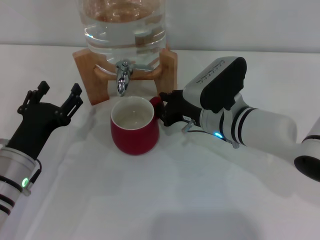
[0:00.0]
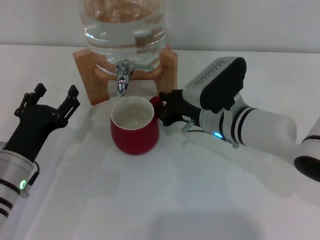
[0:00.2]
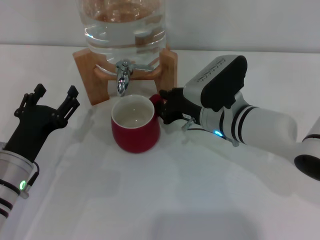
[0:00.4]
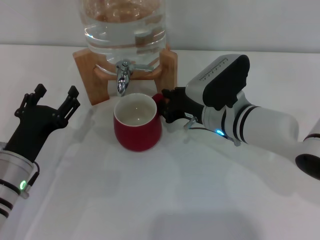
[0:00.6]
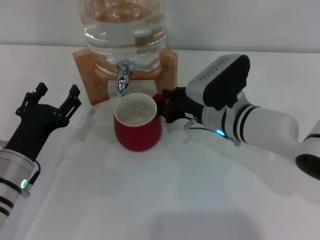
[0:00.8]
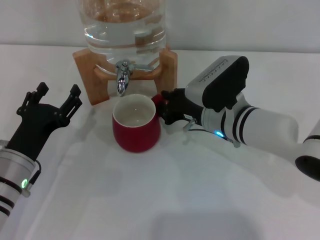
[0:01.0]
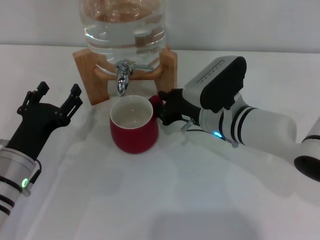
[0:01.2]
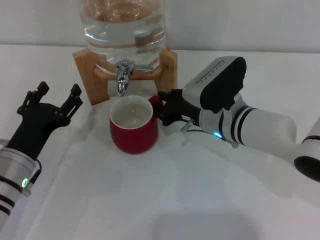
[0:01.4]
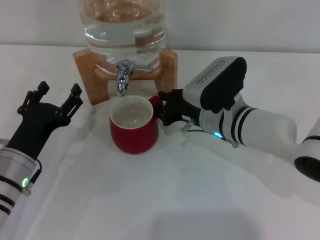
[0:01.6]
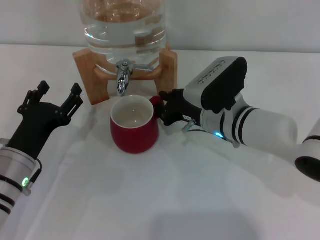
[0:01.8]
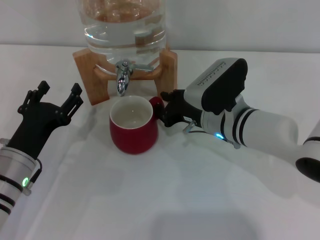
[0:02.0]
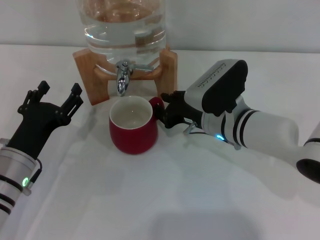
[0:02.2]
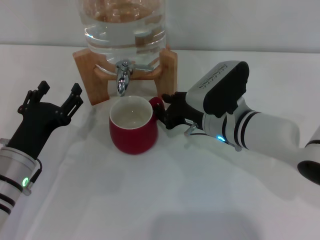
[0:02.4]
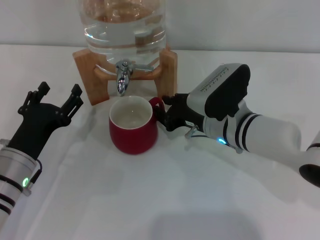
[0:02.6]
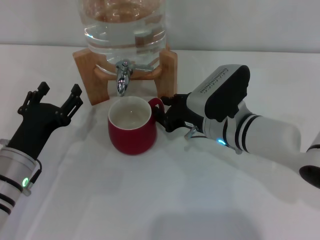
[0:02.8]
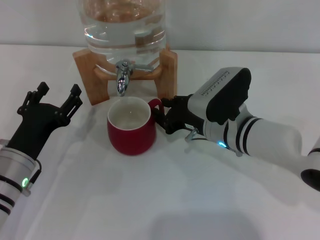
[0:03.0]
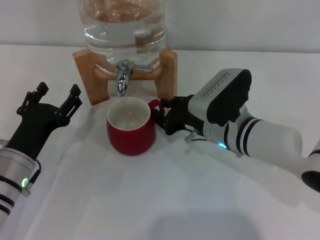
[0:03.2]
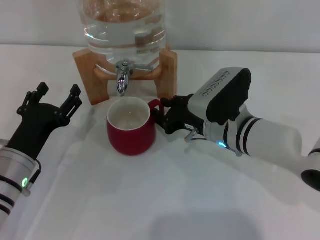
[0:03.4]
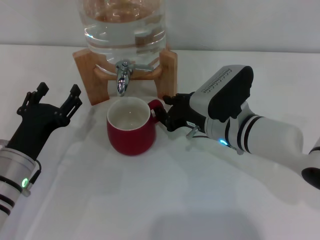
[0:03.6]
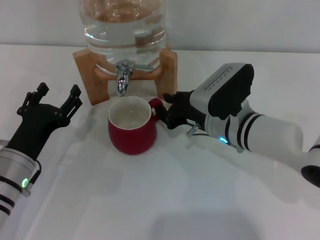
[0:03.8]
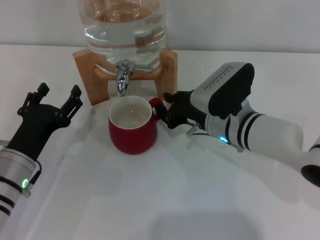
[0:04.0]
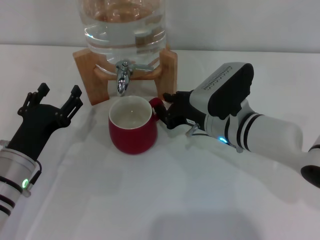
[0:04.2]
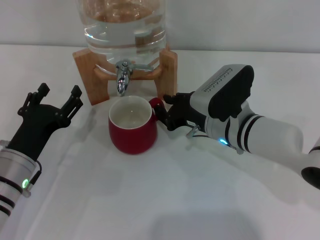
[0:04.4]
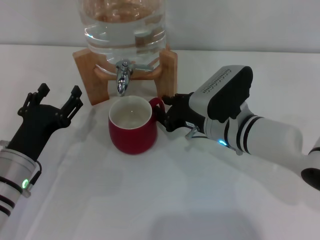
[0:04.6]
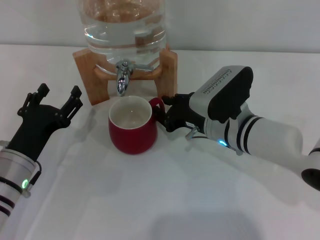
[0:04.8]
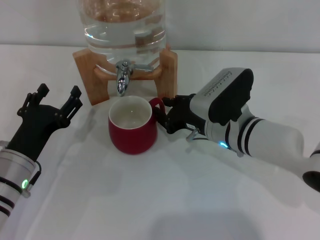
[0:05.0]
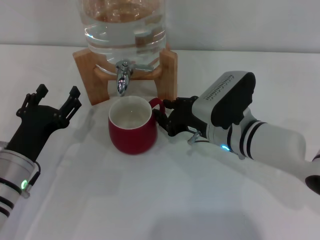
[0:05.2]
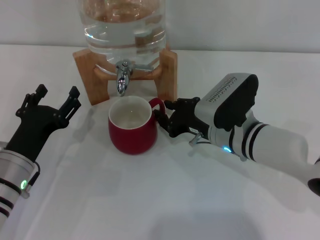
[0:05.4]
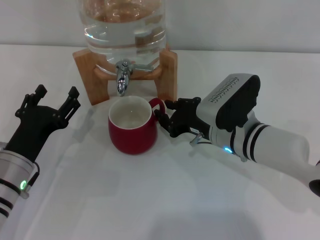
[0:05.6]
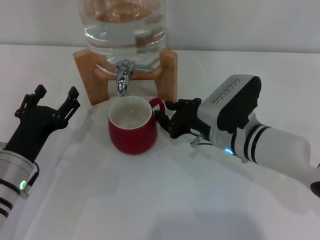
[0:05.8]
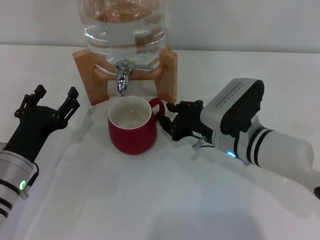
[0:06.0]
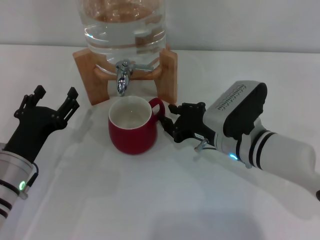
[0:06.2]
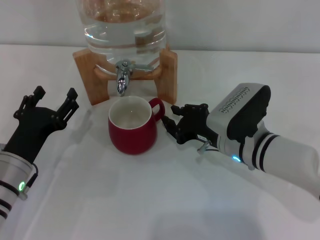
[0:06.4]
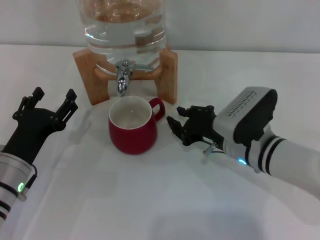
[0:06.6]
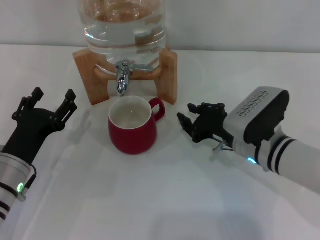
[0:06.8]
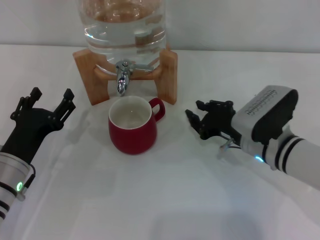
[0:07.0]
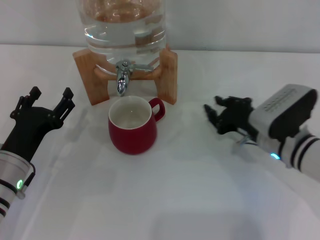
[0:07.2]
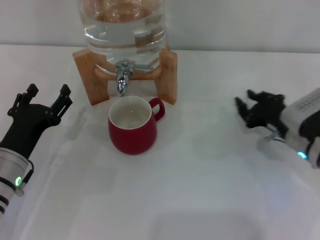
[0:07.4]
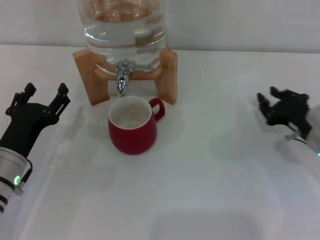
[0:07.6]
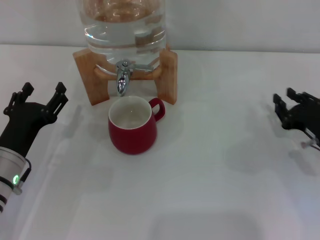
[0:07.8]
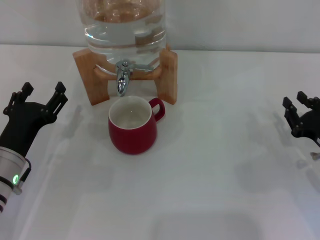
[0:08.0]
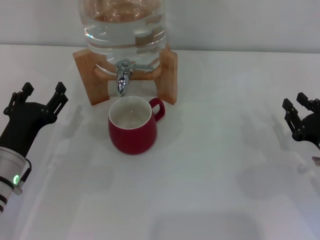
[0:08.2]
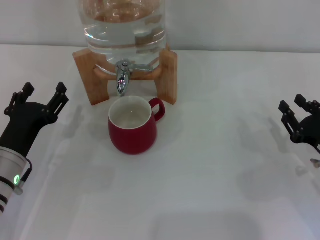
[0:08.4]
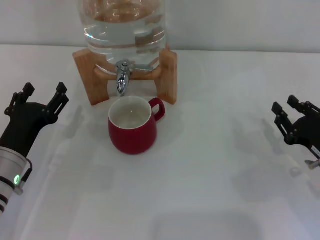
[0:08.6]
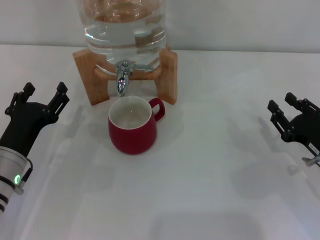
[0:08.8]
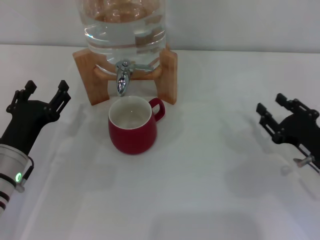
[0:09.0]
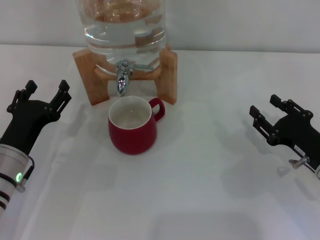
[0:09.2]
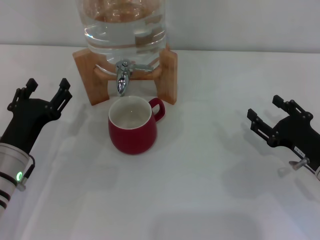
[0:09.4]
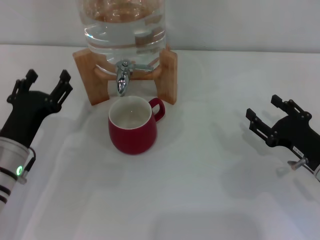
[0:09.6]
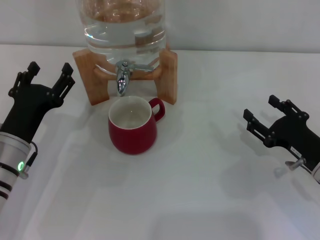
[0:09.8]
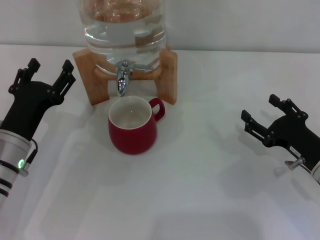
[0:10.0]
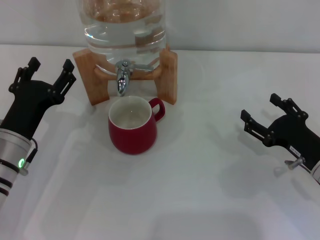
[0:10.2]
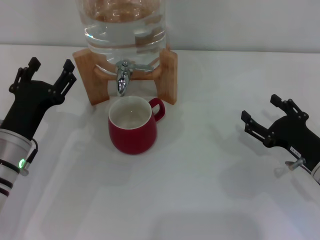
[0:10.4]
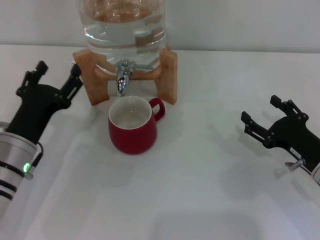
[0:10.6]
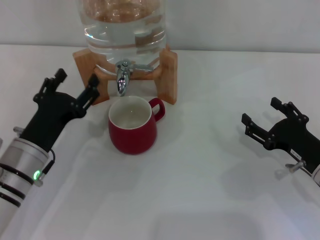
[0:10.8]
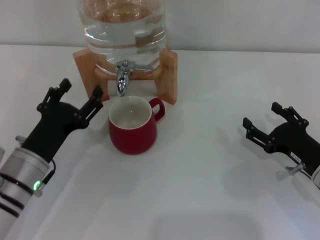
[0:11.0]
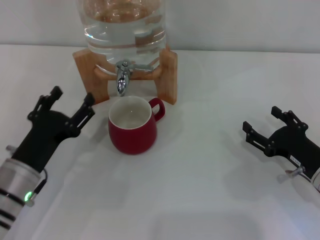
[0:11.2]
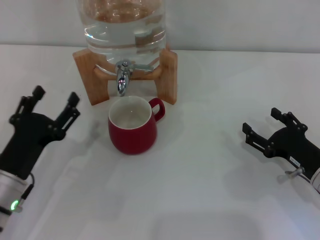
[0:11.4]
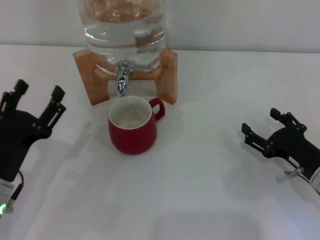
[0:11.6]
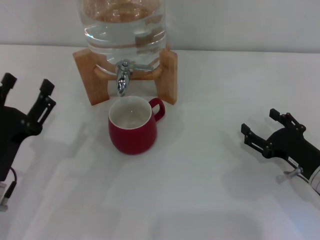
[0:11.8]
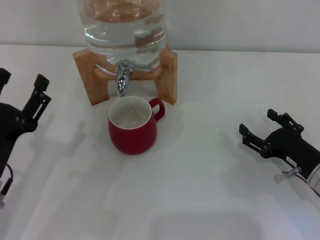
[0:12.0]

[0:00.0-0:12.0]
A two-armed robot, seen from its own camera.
Task of the whole recording: the right gripper pick up the red cup and place it horizontally under the faucet, the left gripper turn on the faucet to fill the cup, and then turn off the faucet.
Step, 0:00.0 to 0:06.6: Move the cup beneath the water dispenser nozzle with the right gripper.
0:00.0 to 0:01.6: Neither gripper changes place.
0:01.6 to 0:03.0: The grippers make only small movements.
0:03.0 to 0:04.4: Both grippers stay put.
0:04.4 to 0:06.0: The grippers stay close to where they were, moving slightly.
0:06.0 to 0:07.6: The right gripper shifts some 15 cm to the right.
0:07.6 to 0:09.0: The right gripper is displaced backward by roughly 5 cm.
0:09.0 to 0:10.4: The right gripper opens its fingers.
0:10.4 to 0:12.0: The left gripper shifts about 5 cm backward.

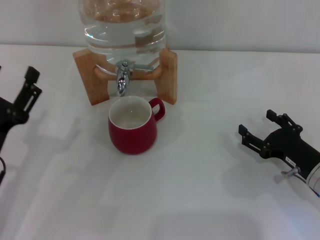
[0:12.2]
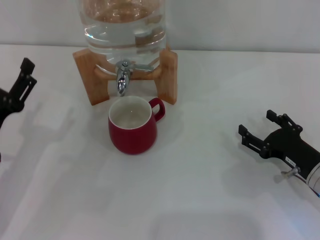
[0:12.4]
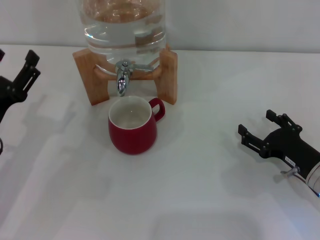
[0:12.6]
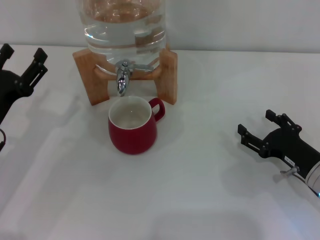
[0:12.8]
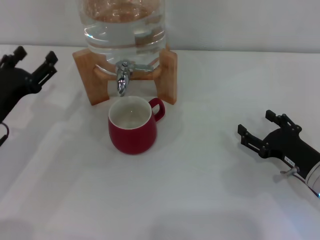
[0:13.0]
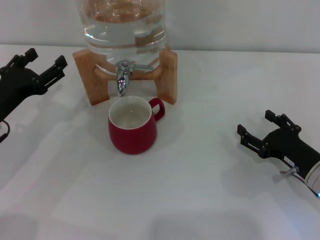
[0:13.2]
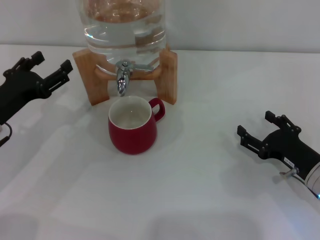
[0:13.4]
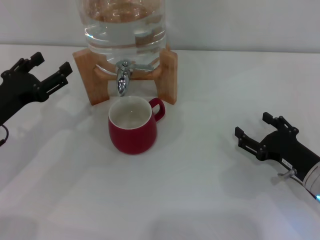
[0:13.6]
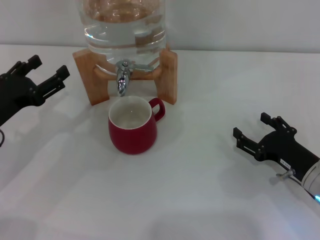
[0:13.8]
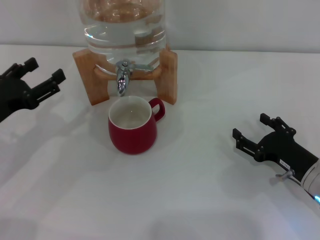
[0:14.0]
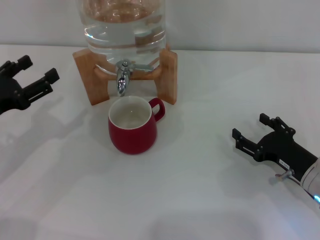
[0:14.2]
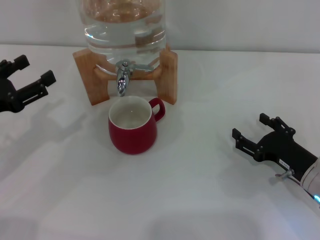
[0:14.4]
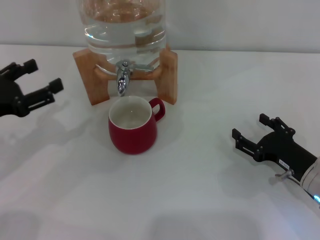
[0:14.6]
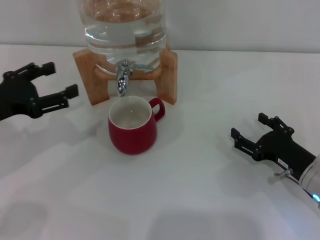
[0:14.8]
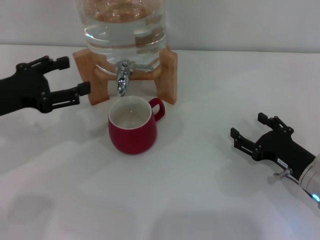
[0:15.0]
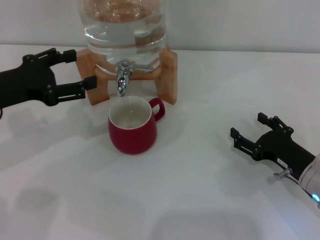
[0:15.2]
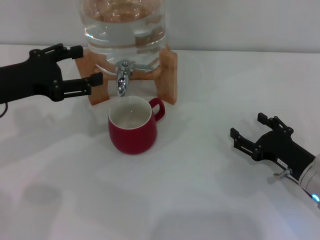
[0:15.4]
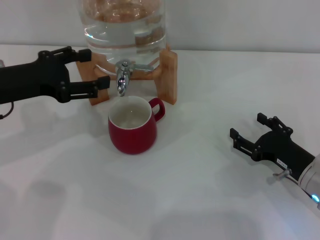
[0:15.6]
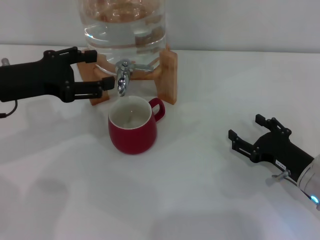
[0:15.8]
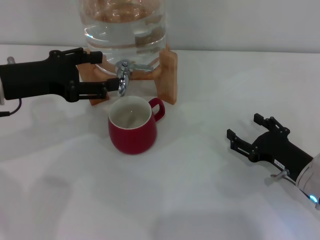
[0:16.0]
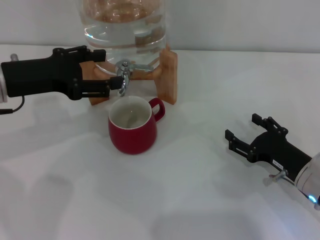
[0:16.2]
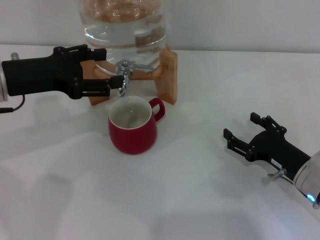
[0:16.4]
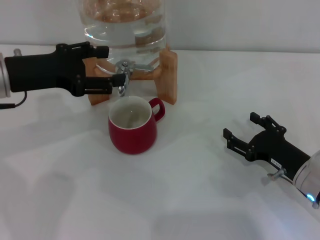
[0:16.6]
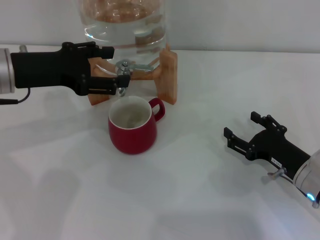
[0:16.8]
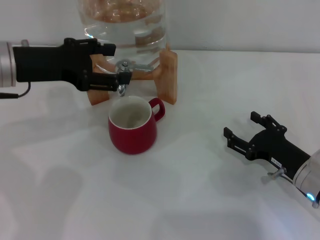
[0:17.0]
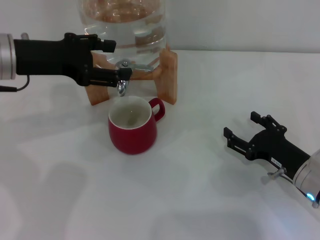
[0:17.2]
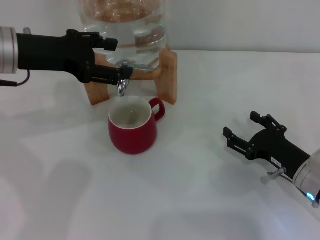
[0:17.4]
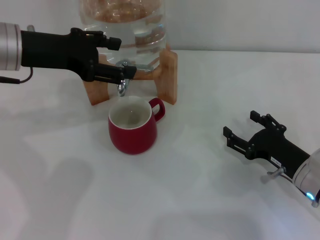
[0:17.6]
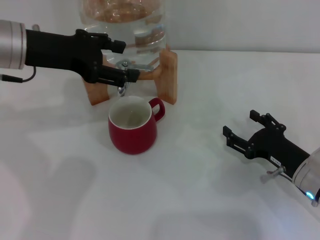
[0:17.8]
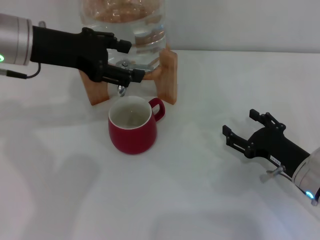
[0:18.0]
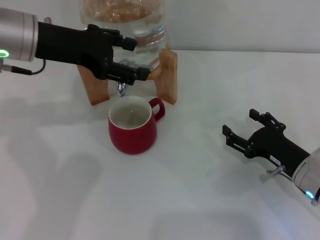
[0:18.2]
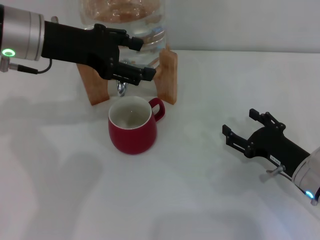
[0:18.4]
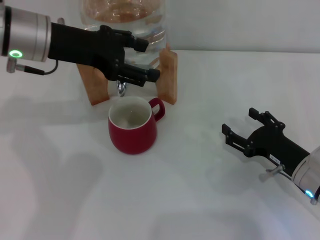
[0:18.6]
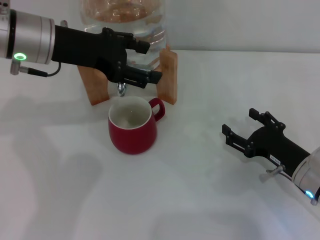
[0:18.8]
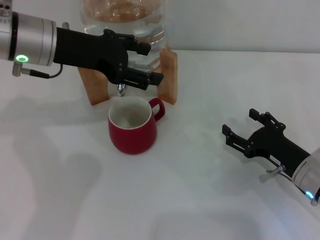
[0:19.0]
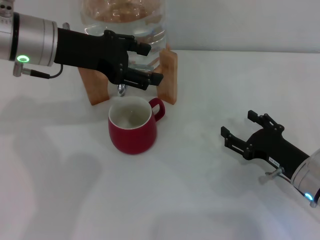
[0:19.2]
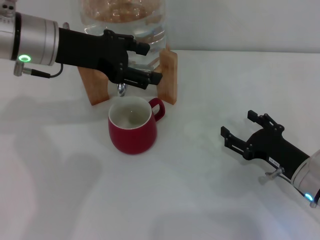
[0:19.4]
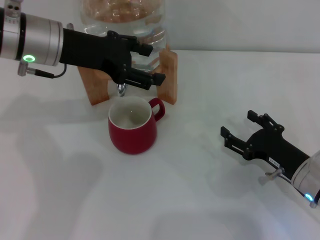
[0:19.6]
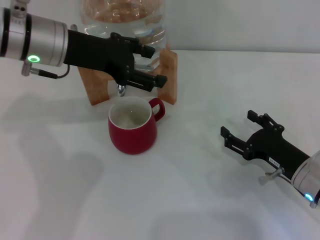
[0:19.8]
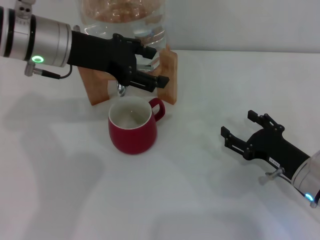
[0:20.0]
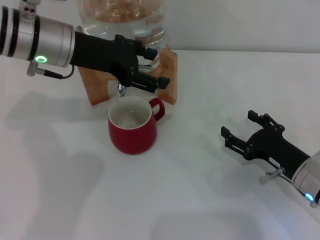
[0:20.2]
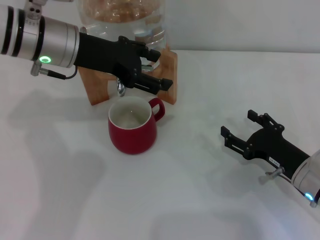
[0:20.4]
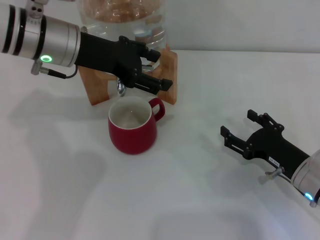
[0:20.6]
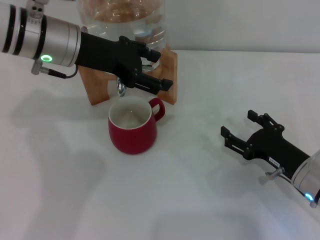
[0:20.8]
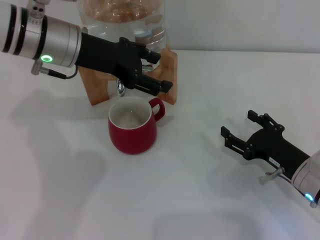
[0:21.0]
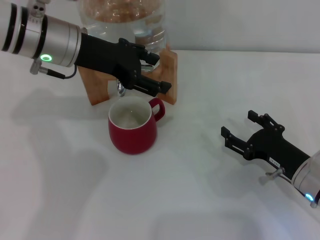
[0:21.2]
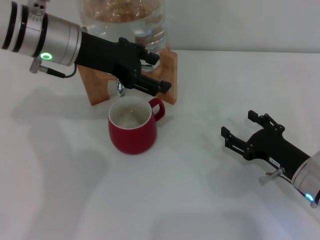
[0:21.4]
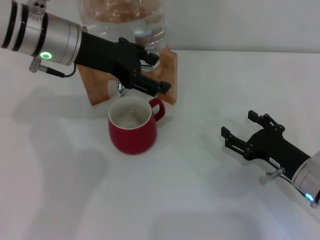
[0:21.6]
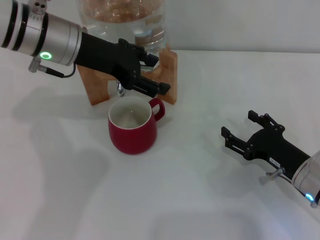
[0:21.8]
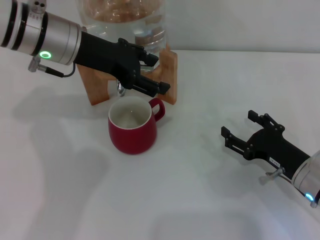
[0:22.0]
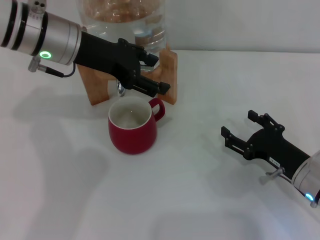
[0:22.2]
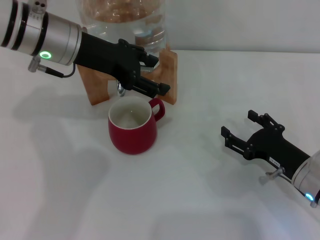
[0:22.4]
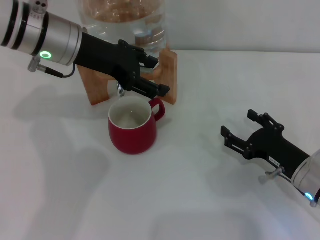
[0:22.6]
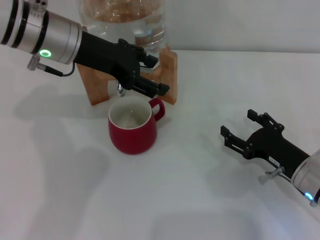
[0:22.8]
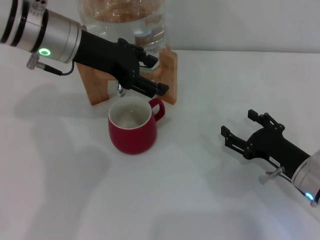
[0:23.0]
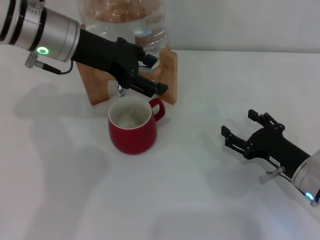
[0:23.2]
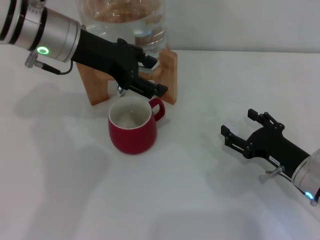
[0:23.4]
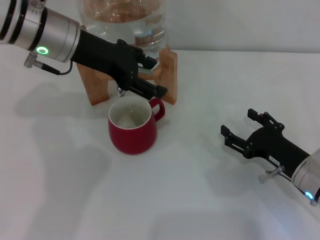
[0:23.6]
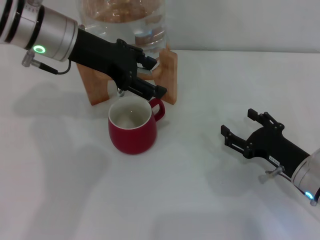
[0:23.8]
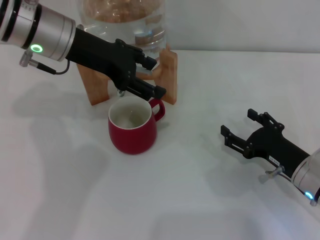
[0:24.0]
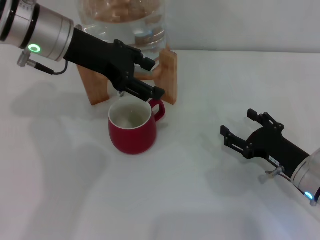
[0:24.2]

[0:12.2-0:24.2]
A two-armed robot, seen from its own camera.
Task of the whole recording: the right gripper pick up the red cup and place it horizontally under the faucet, the left gripper turn on the faucet to fill the cup, and then turn off the faucet.
0:12.2 to 0:13.8: The left gripper heads forward, covering about 5 cm.
0:13.8 to 0:15.2: The left gripper is displaced upward by about 5 cm.
0:15.2 to 0:16.6: There are only small adjustments of the grippers.
0:16.6 to 0:18.2: The left gripper moves approximately 10 cm.
0:18.2 to 0:21.2: There are only small adjustments of the grippers.
0:21.2 to 0:22.6: Both grippers stay about where they are.
0:22.6 to 0:24.2: The grippers stay close to where they were, moving slightly.
